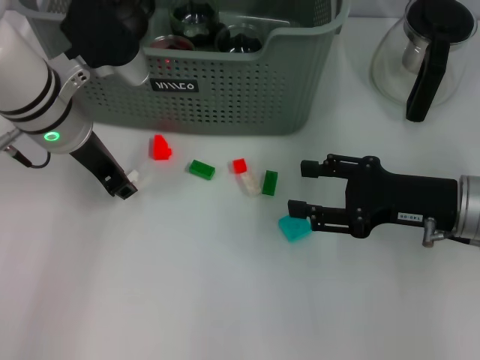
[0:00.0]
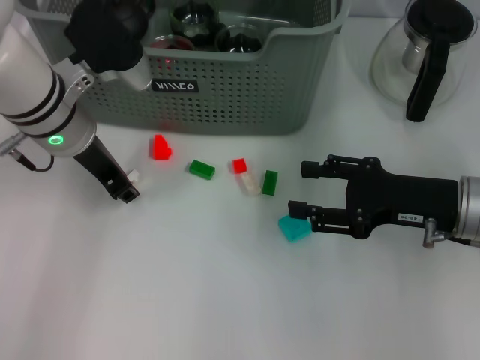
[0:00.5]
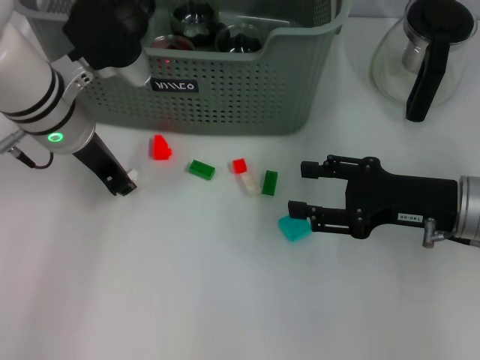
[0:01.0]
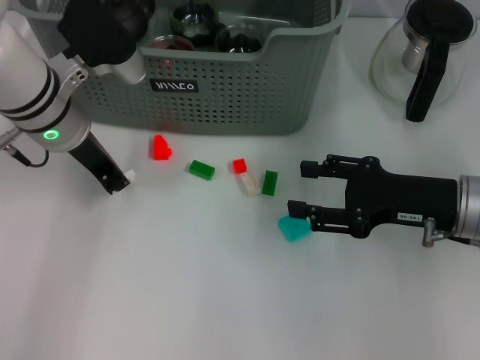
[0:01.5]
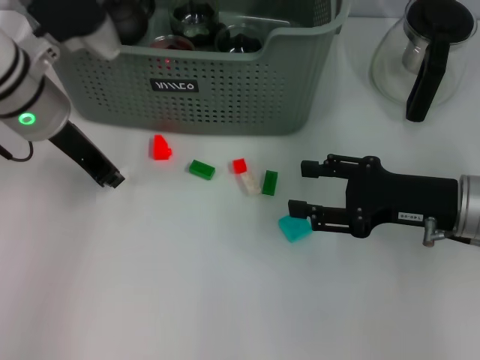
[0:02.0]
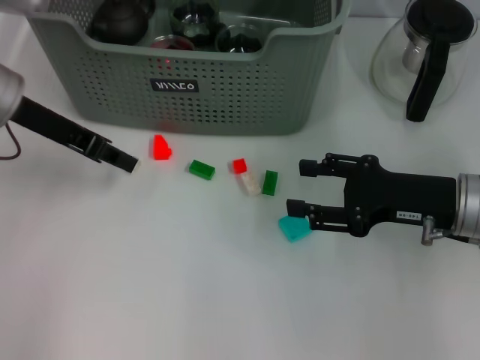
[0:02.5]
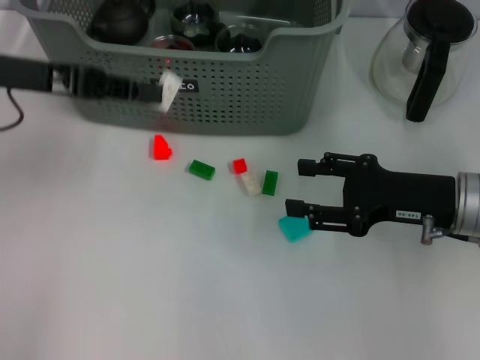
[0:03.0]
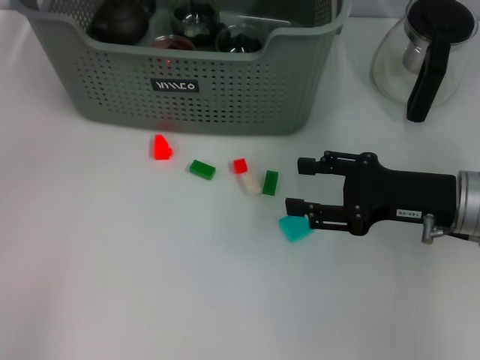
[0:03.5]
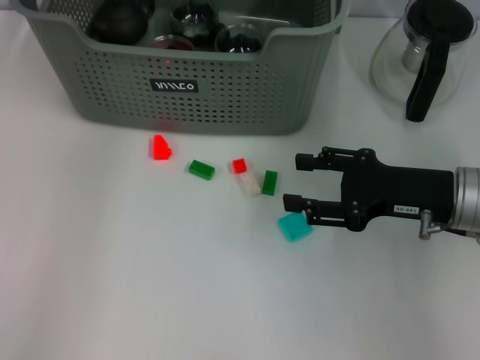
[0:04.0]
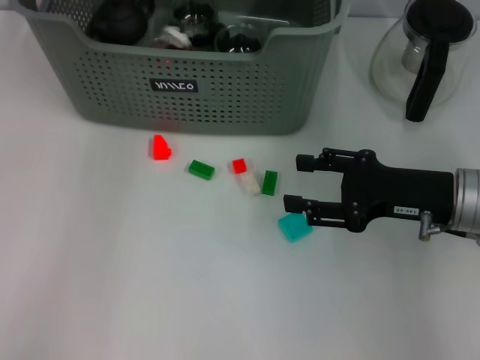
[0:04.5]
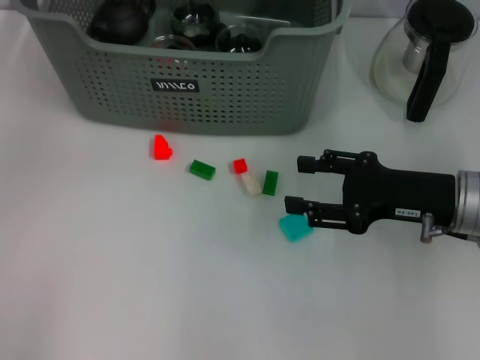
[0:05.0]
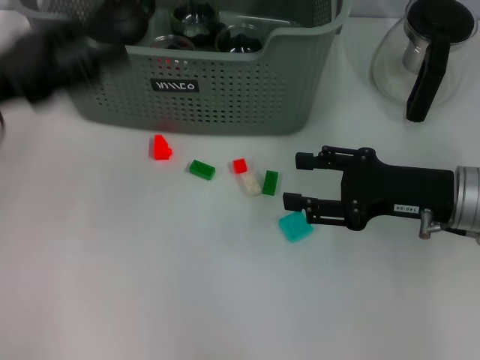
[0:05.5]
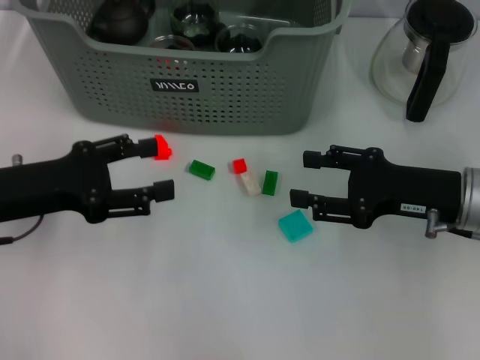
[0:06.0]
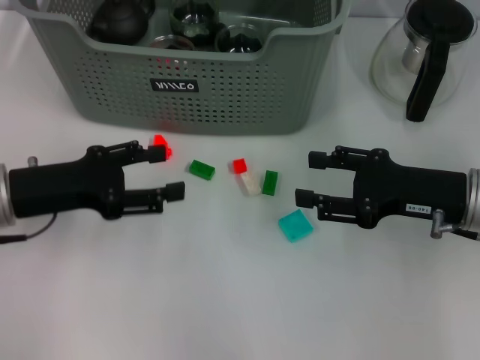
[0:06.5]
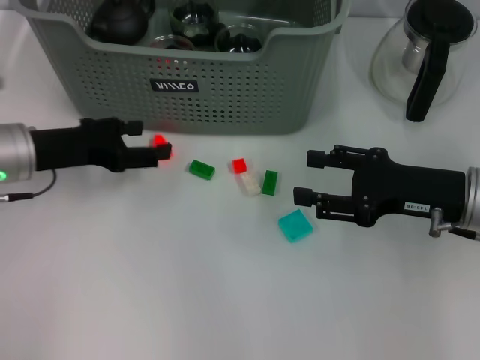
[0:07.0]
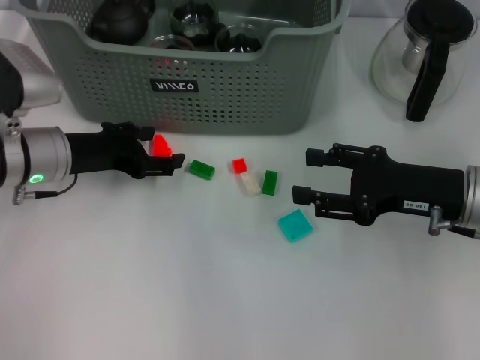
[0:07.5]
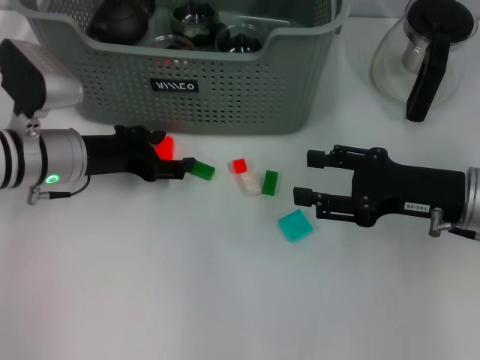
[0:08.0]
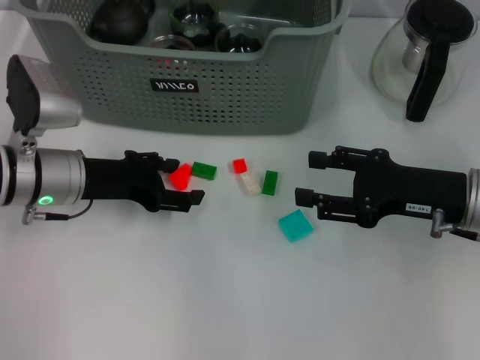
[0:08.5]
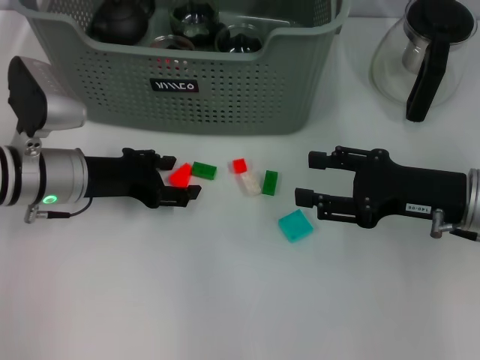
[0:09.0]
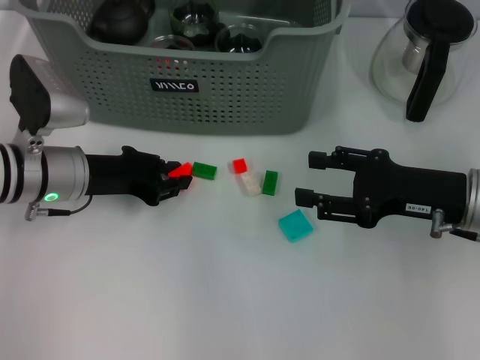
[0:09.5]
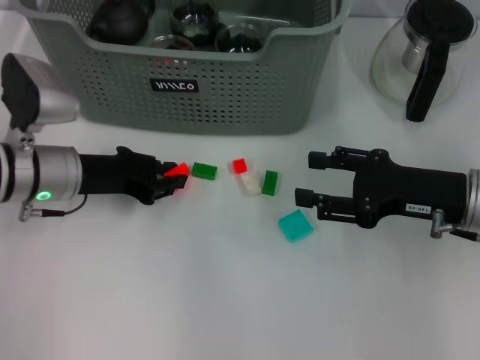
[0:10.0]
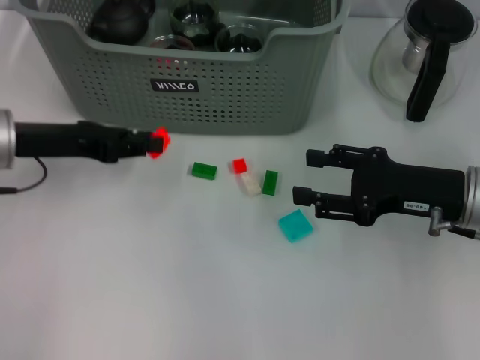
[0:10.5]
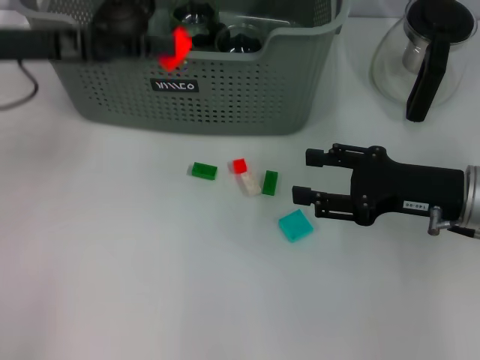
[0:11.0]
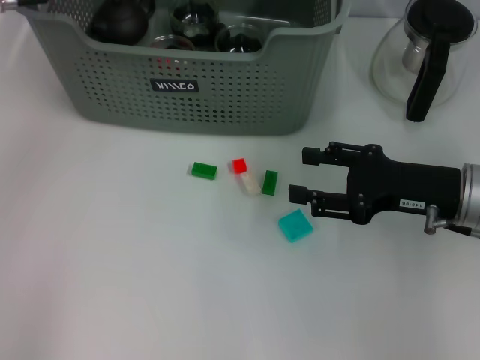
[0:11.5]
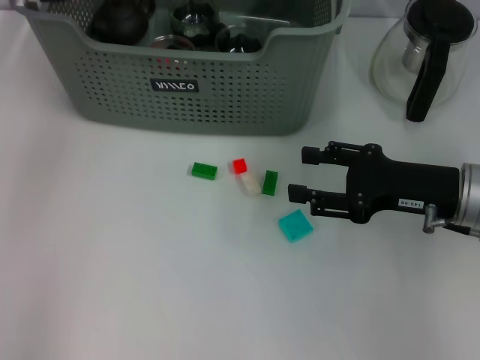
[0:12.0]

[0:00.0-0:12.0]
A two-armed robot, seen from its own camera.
Task of the whole recording: pick up the teacup on the table and place it into the storage bin, pick up the block on the table and place it into the storage bin.
Step, 0:02.0 to 0:04.5: Place the white block in the storage box with left gripper.
Step, 0:05.0 to 0:09.5: Grasp the orange block with left gripper.
0:00.0 to 0:02.0: The left gripper closes its fingers.
0:02.0 to 0:04.0: The left gripper goes about 15 cm upward and forward.
0:04.0 to 0:06.0: The left gripper shifts some 30 cm backward, downward and to the left, and opens its fingers.
0:06.0 to 0:08.0: The left gripper travels forward by approximately 10 cm.
0:08.0 to 0:10.0: The left gripper closes.
0:10.0 to 0:12.0: The left gripper travels upward and forward by roughly 20 cm.

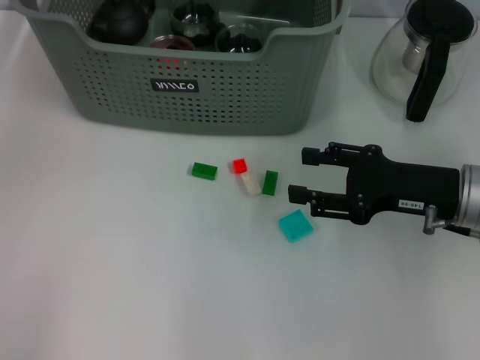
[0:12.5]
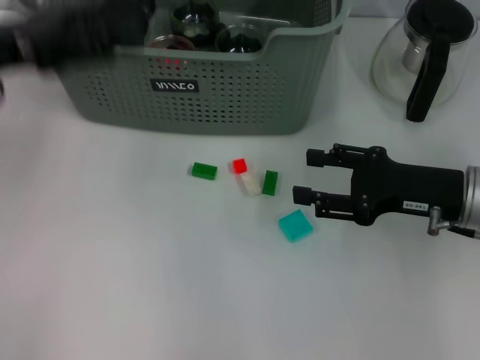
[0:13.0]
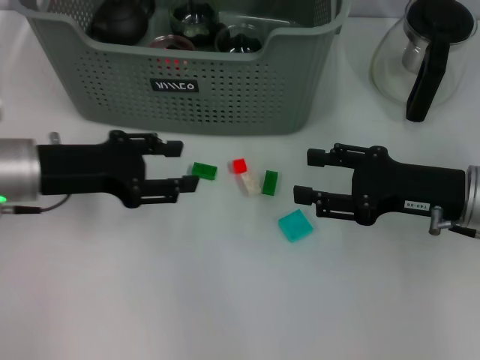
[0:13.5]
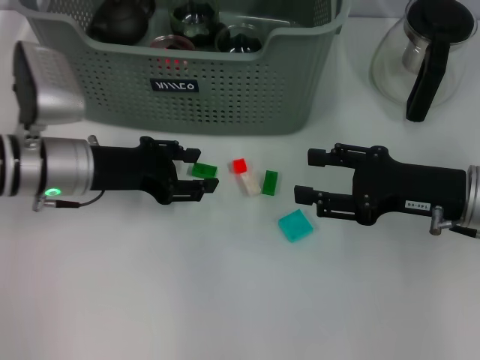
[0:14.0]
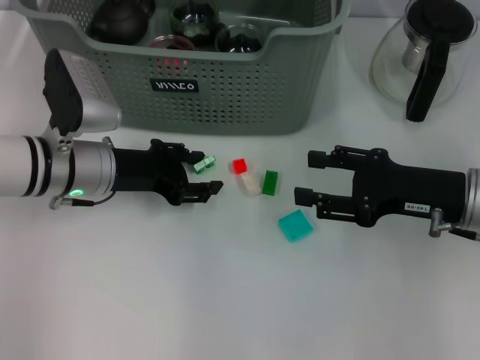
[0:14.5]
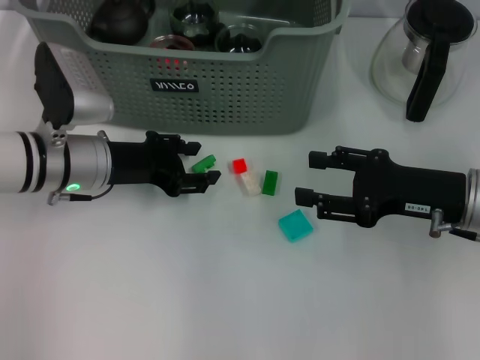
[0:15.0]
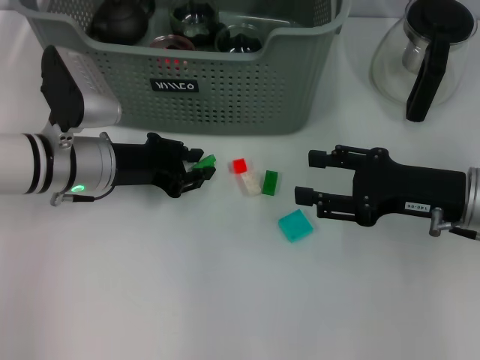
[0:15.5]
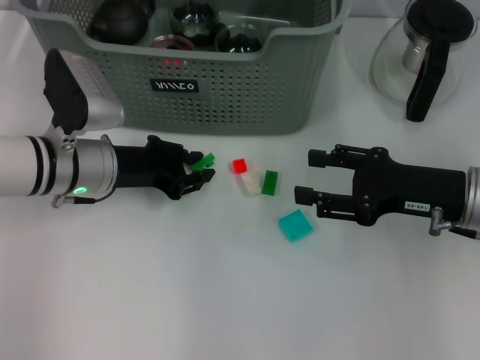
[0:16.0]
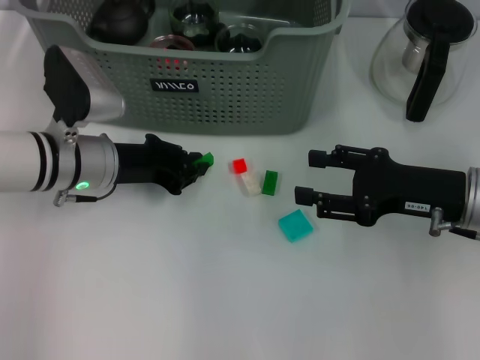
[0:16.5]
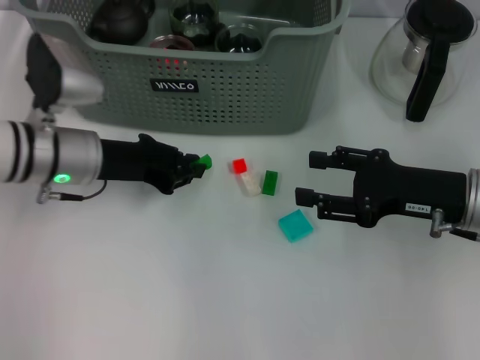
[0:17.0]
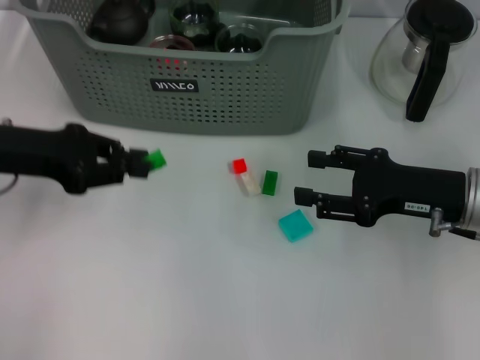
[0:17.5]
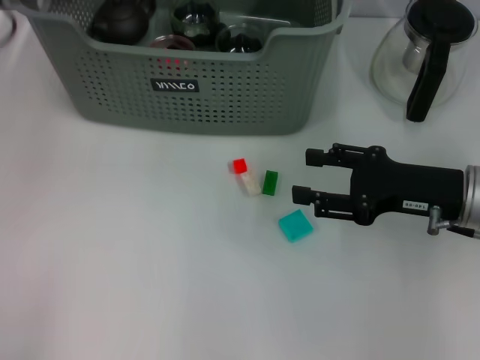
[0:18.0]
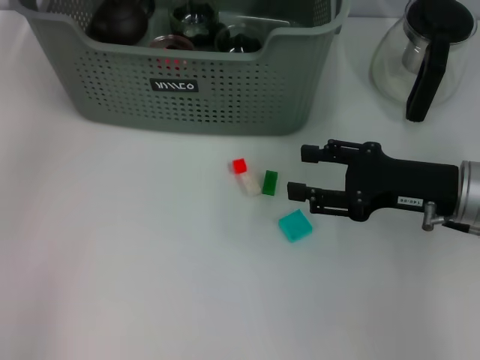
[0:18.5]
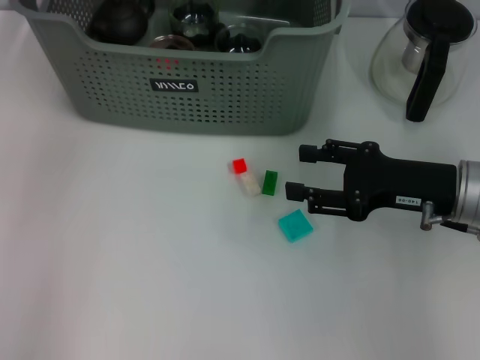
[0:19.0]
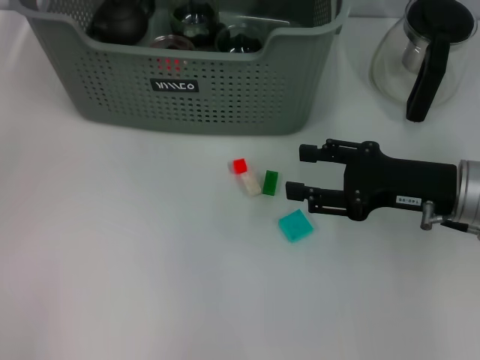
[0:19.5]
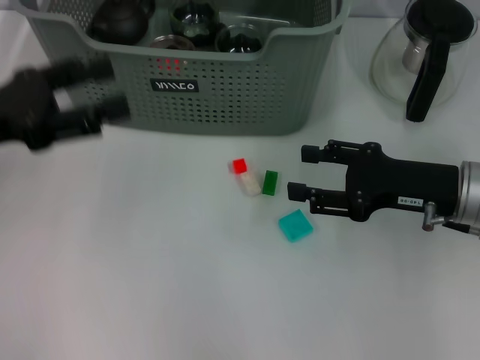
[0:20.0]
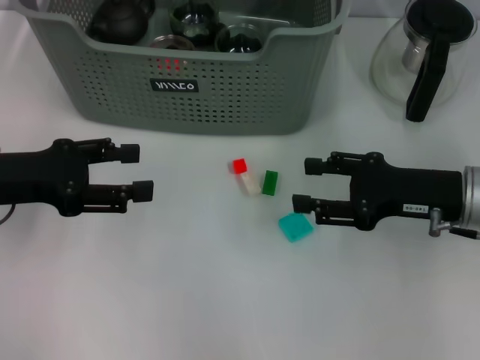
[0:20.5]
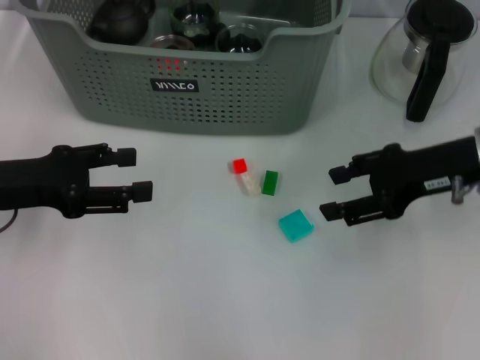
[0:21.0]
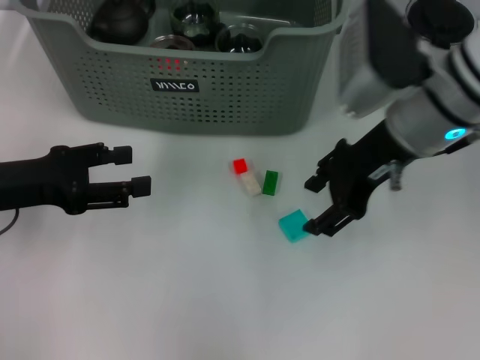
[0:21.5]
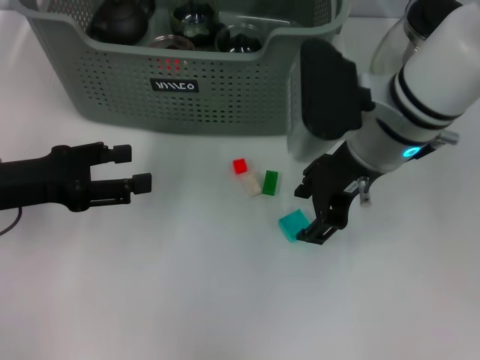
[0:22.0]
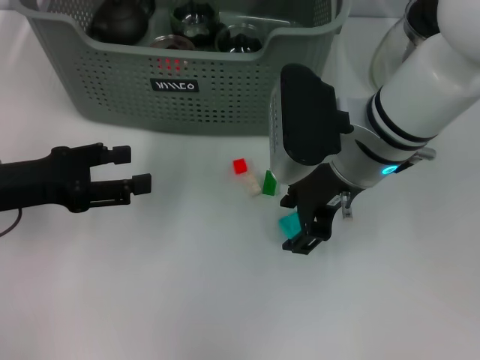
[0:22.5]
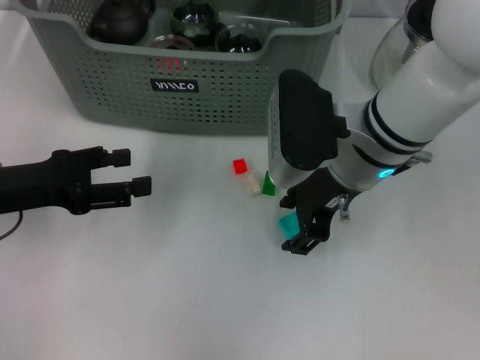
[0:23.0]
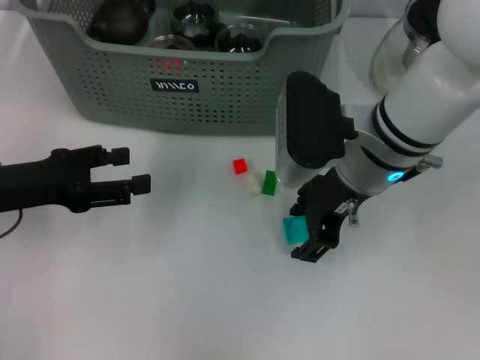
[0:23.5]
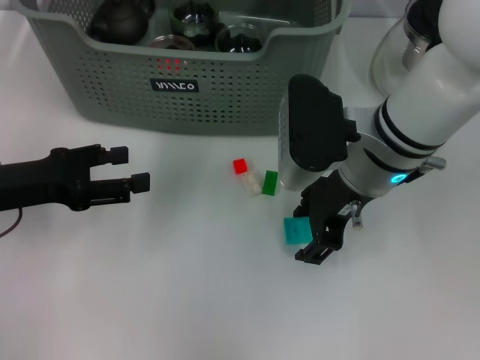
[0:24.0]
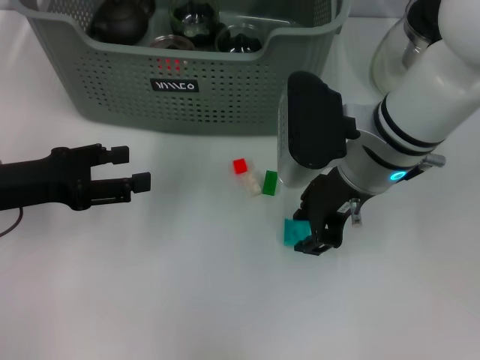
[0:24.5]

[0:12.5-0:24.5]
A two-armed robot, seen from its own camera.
Task of the whole recording: pick up the teacup on the table and place it into the storage bin, pick up the block on the table and place it into the storage bin.
Step, 0:13.0 to 0:16.5: Grasp the green block with left gripper.
Step, 0:17.0 to 0:19.0: Place the green block in the storage box with left gripper.
0:12.5 to 0:14.5: The left gripper shifts some 20 cm downward and to the right.
0:14.5 to 0:16.5: The left gripper closes.
0:16.5 to 0:18.5: The left gripper is displaced upward and forward by approximately 20 cm.
0:18.5 to 0:20.5: The left gripper goes roughly 20 cm backward and downward, and opens its fingers.
0:20.5 to 0:22.5: The right gripper moves to the left, approximately 15 cm.
0:22.5 to 0:24.5: Both grippers stay put.

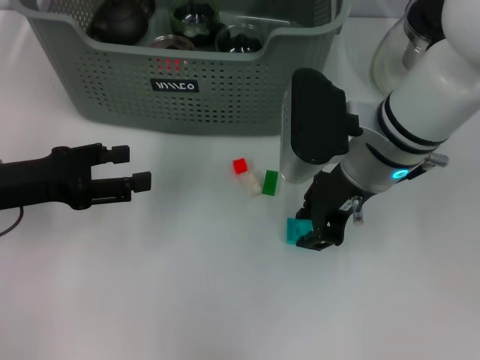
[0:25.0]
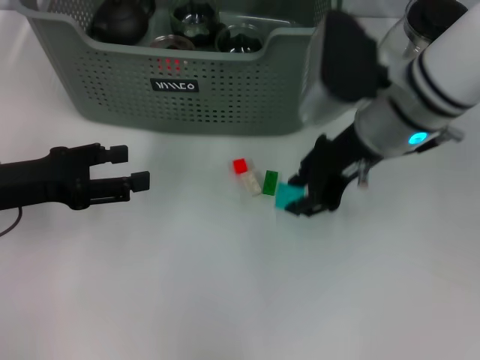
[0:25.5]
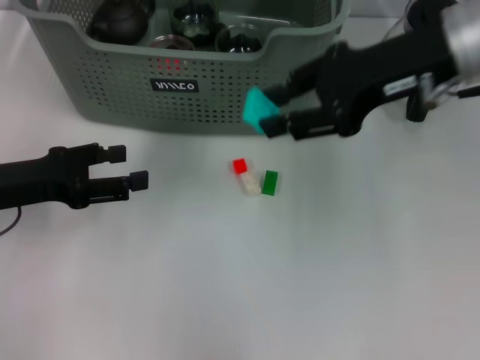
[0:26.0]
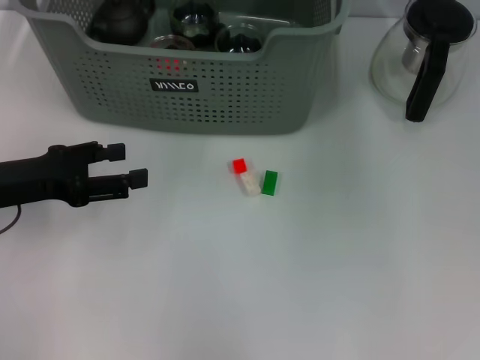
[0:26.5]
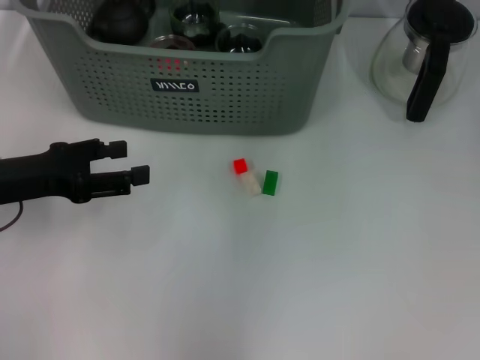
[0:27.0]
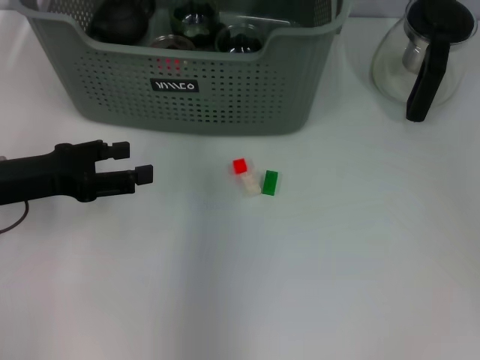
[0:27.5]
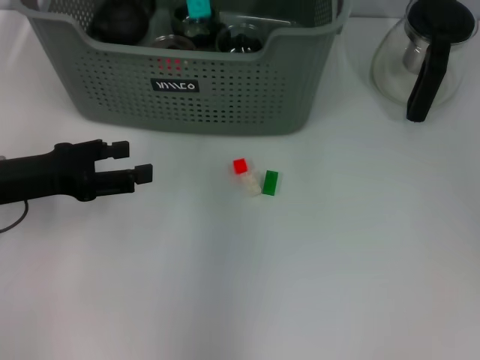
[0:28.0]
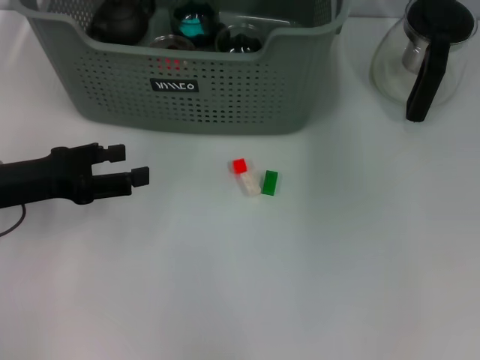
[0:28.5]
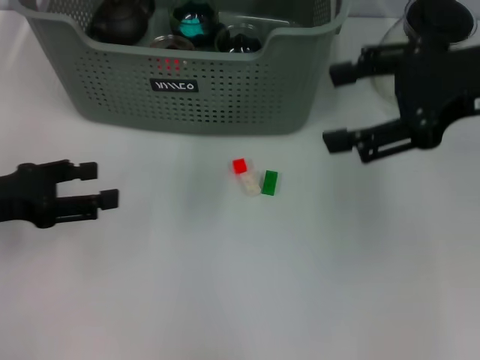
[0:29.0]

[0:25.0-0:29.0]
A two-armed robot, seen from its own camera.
Task of the whole recording: pick up the teacup on the table and place it into the storage bin, pick up the block on the table and place it into the storage bin.
Step, 0:25.5 to 0:28.0: Place the light blue block in the storage box with right gripper.
0:25.0 to 0:27.0: The right gripper heads upward and forward, covering roughly 20 cm.
0:27.0 to 0:29.0: The right gripper heads to the right, backward and downward, covering about 15 cm, and opens its fingers.
